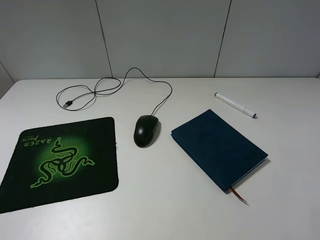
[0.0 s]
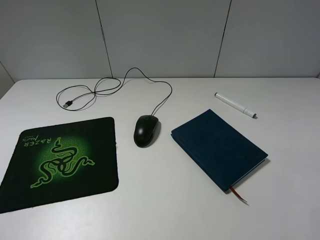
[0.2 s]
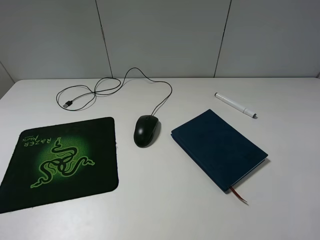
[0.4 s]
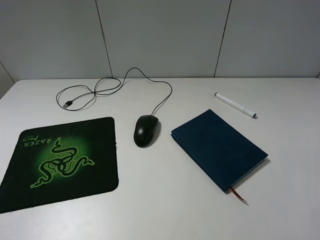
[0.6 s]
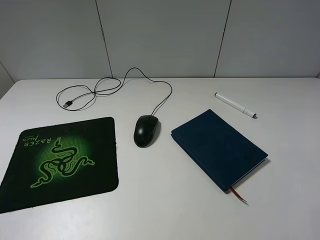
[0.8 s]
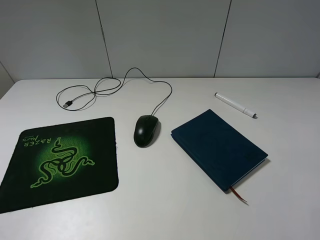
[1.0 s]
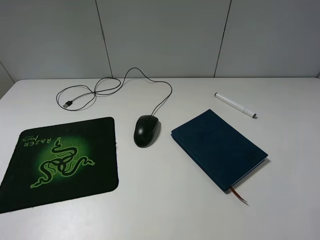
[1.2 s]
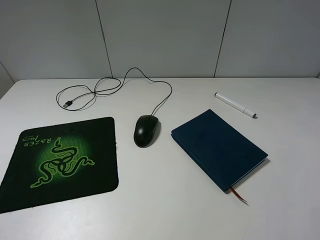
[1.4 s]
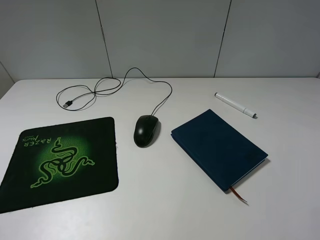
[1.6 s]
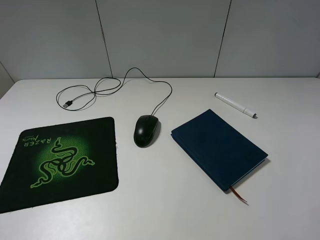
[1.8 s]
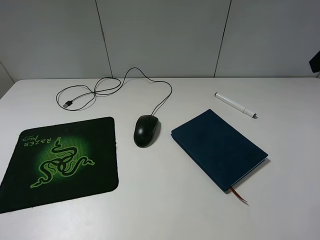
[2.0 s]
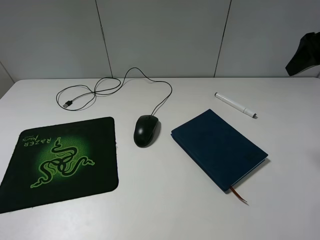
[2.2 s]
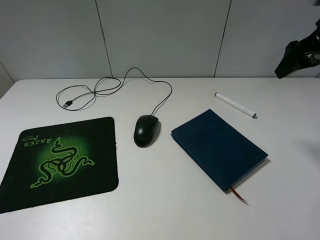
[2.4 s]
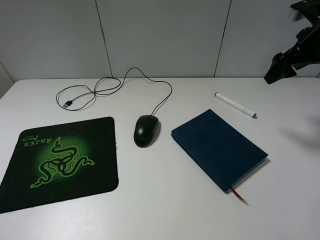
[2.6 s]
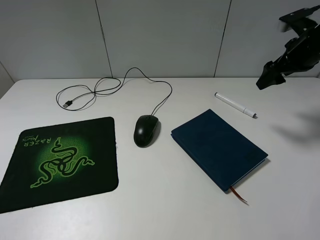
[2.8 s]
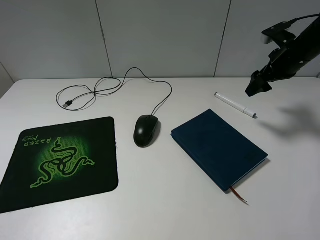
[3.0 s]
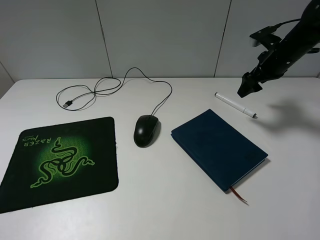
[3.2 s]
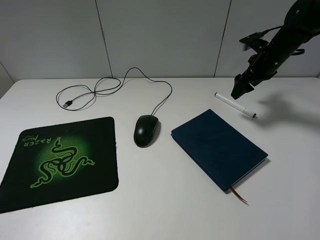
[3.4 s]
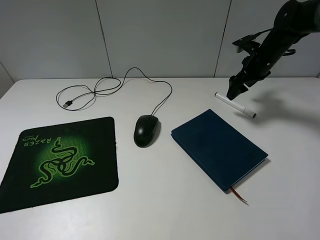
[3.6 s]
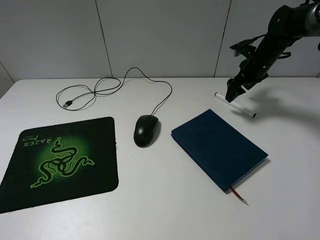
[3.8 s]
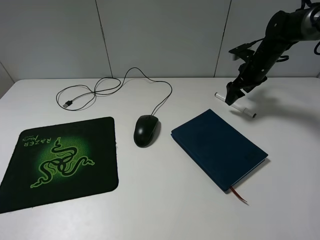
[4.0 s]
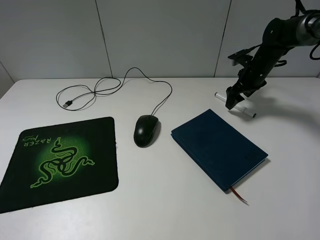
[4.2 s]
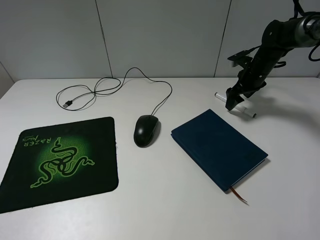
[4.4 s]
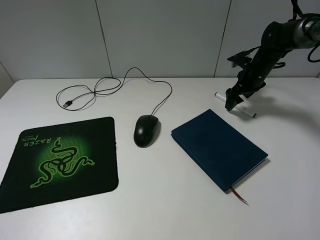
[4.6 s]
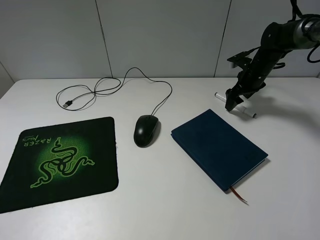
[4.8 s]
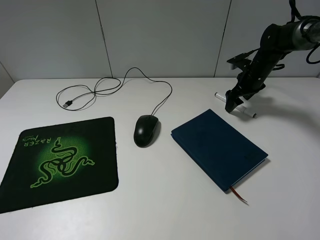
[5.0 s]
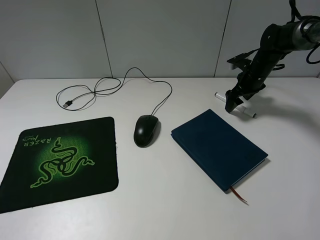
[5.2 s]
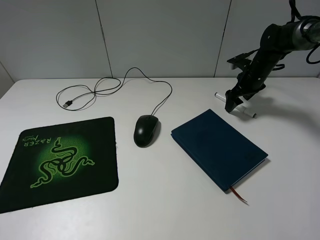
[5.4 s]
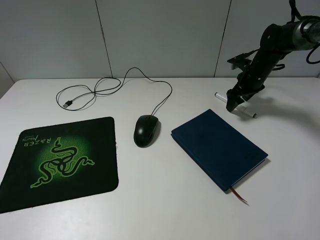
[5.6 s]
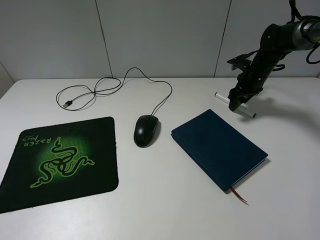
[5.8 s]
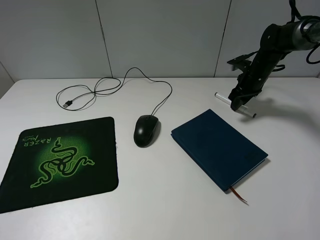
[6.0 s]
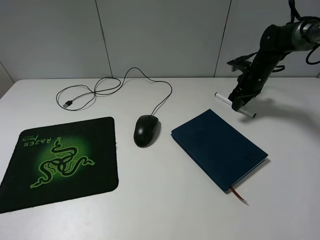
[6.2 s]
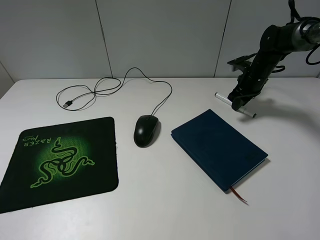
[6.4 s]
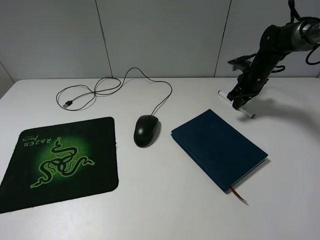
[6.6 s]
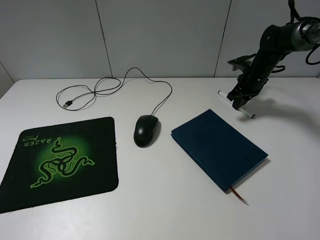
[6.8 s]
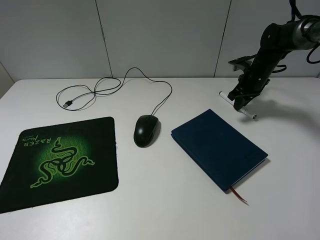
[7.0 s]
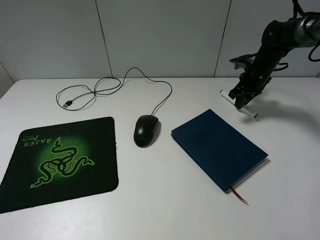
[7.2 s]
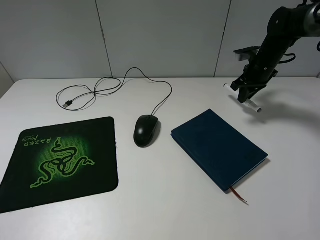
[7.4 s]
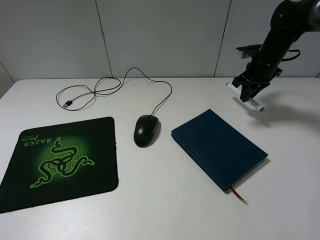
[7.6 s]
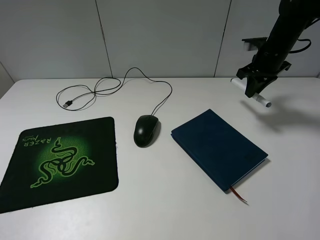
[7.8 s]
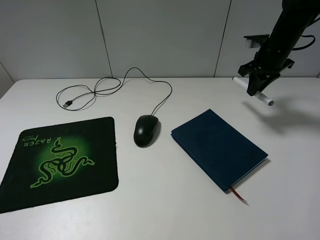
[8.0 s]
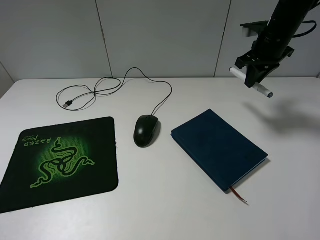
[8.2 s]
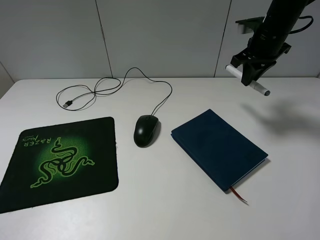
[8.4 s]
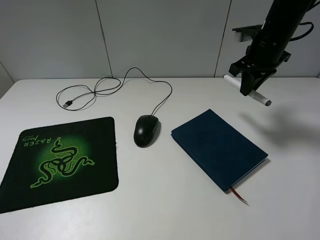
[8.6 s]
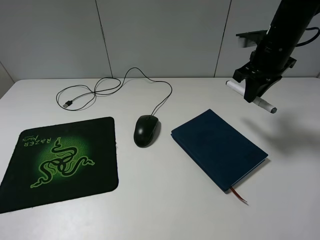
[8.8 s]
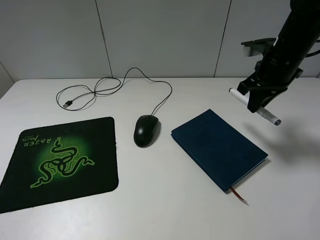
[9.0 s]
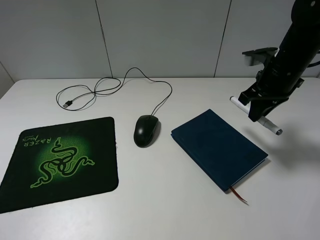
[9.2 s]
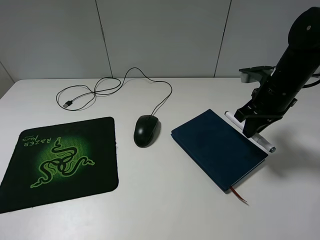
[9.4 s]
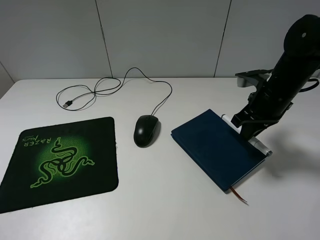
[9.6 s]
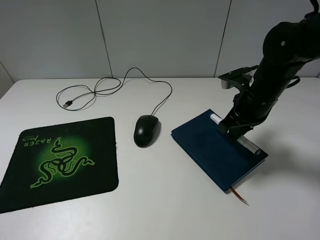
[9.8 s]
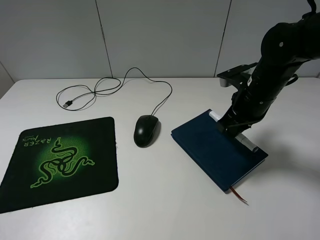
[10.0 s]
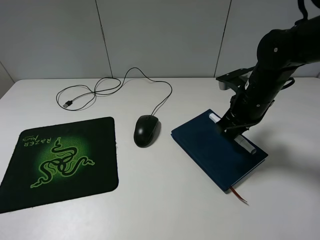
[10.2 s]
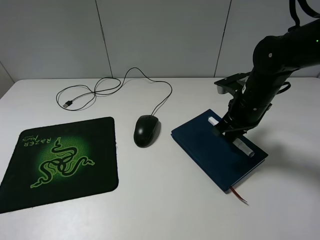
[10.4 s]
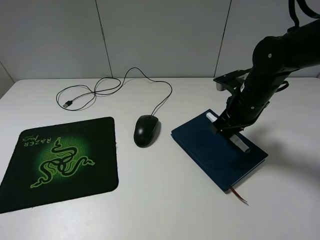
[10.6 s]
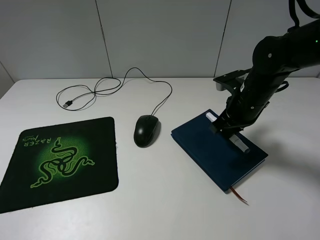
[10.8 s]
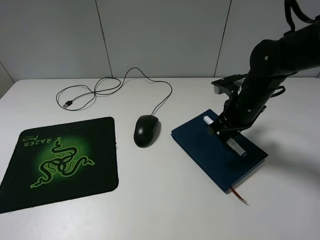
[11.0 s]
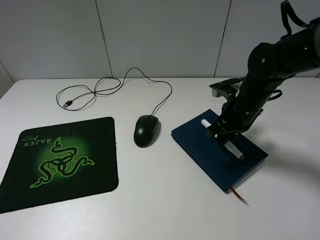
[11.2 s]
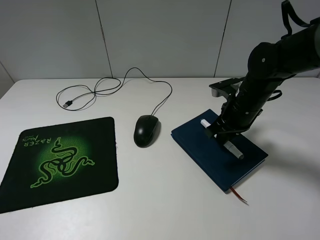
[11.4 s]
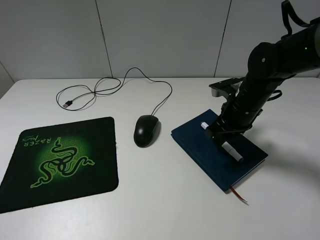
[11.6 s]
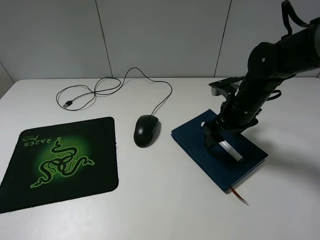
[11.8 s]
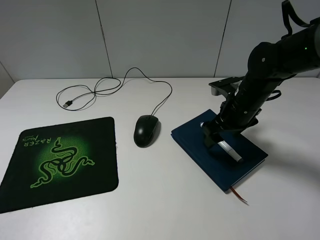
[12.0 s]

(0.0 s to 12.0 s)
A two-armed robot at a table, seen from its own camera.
Step, 0.0 s - 6.8 s: Grasp the marker with the right gripper.
Step, 7.0 s - 11.8 s: Place the marker on the notebook with the right gripper.
1.6 s - 3.0 s: The right gripper moves forward and downward, some 35 cm.
3.0 s - 4.4 s: The right gripper shifts about 10 cm downward and forward.
4.4 s - 6.0 s: The right gripper closes.
6.0 s - 7.6 s: The right gripper heads upward, covering some 5 cm.
7.6 s - 9.0 s: The right gripper goes about 15 cm backward and upward.
9.0 s - 10.4 s: The right gripper moves downward, about 5 cm.
10.4 s - 12.0 s: The right gripper opens up.

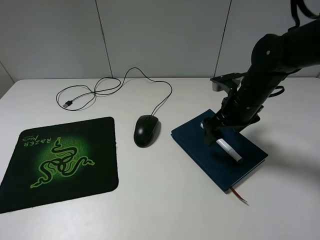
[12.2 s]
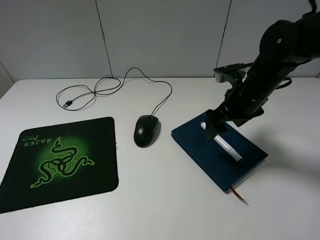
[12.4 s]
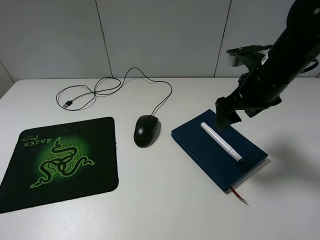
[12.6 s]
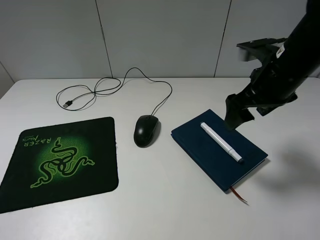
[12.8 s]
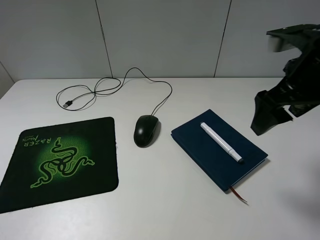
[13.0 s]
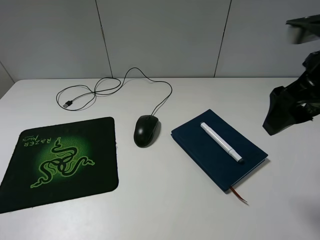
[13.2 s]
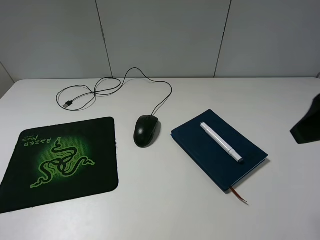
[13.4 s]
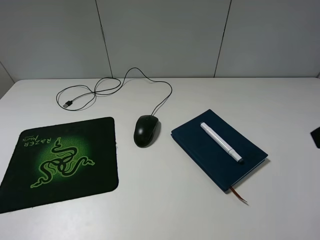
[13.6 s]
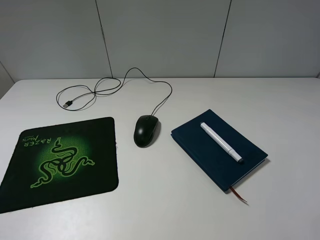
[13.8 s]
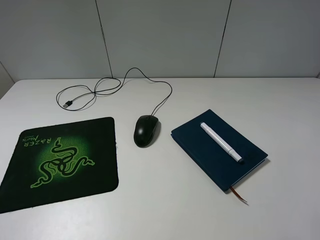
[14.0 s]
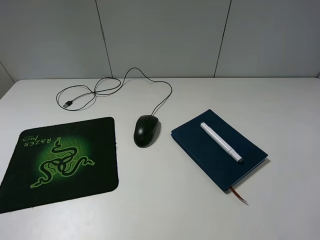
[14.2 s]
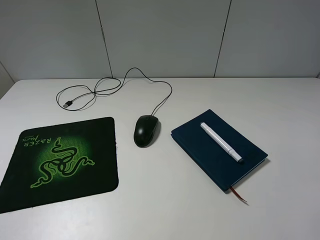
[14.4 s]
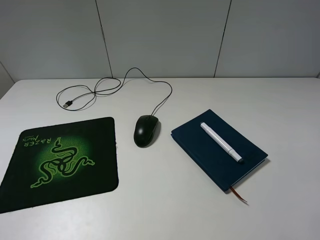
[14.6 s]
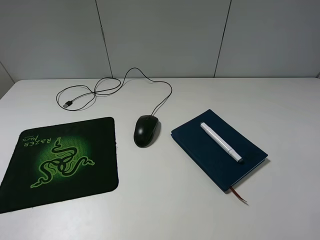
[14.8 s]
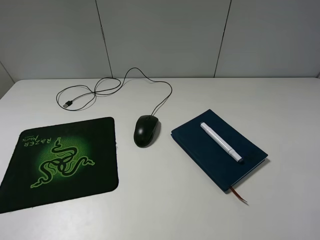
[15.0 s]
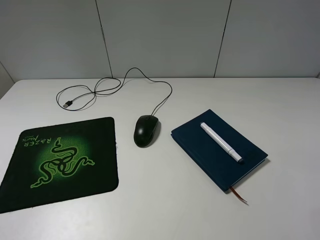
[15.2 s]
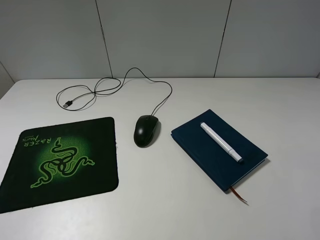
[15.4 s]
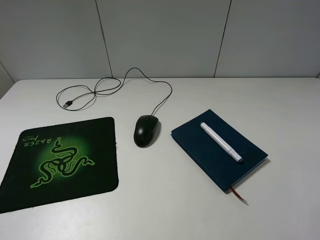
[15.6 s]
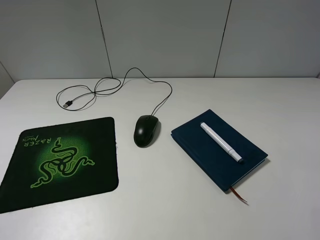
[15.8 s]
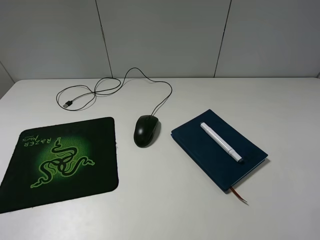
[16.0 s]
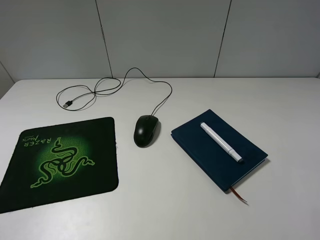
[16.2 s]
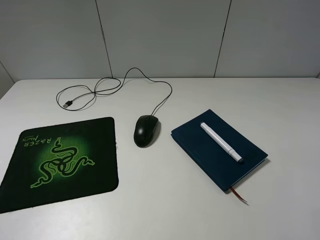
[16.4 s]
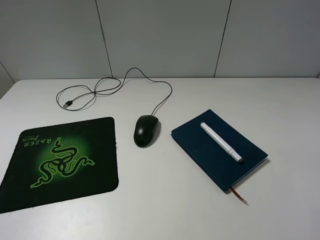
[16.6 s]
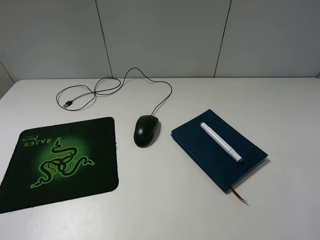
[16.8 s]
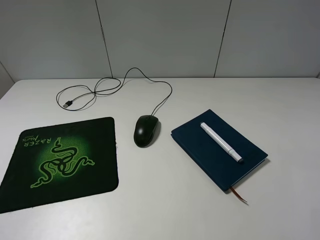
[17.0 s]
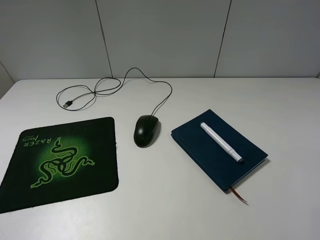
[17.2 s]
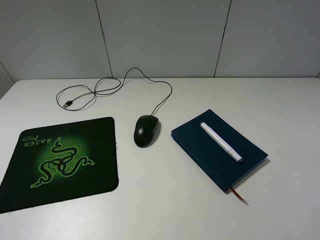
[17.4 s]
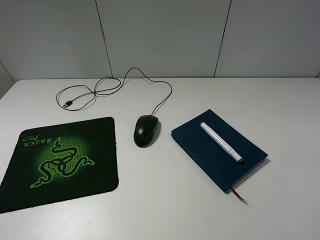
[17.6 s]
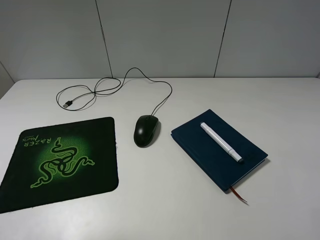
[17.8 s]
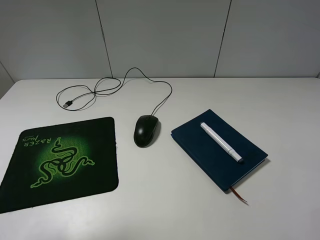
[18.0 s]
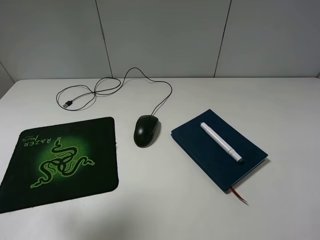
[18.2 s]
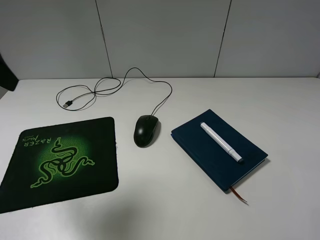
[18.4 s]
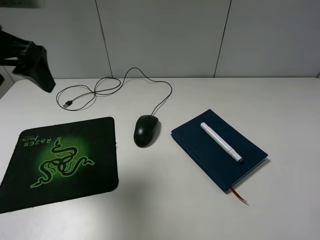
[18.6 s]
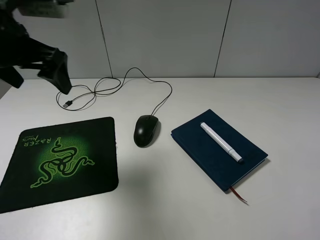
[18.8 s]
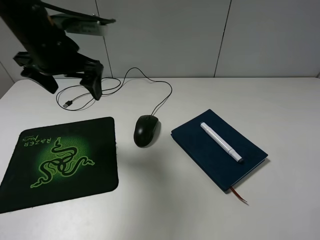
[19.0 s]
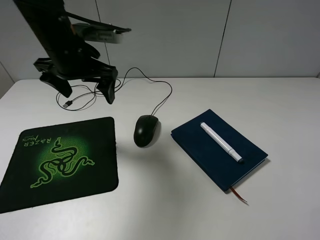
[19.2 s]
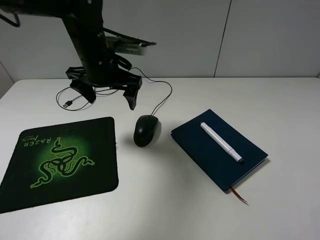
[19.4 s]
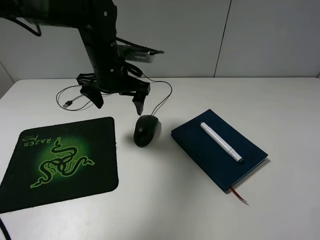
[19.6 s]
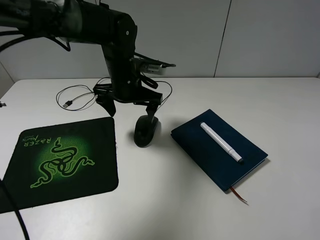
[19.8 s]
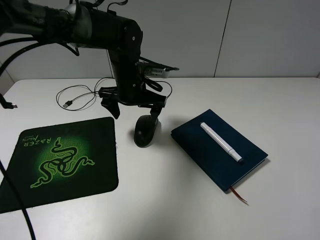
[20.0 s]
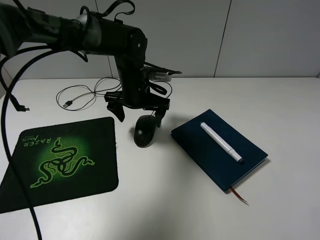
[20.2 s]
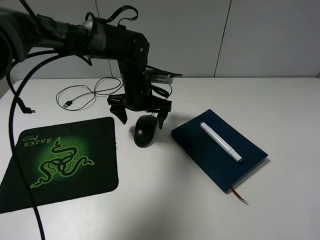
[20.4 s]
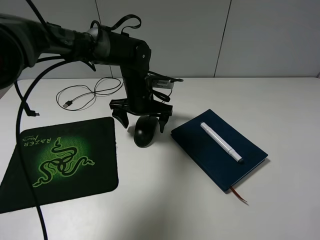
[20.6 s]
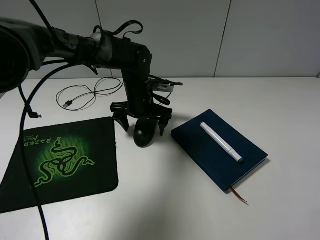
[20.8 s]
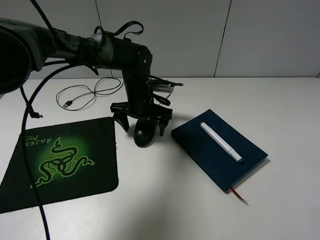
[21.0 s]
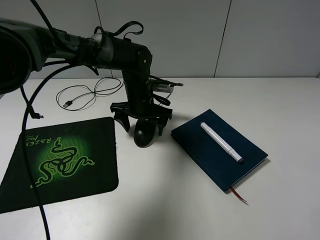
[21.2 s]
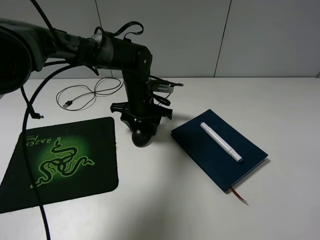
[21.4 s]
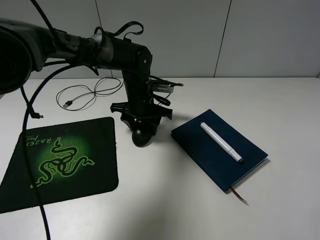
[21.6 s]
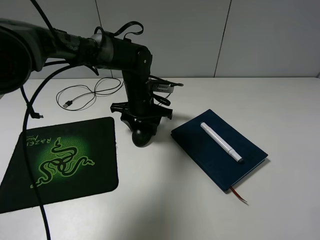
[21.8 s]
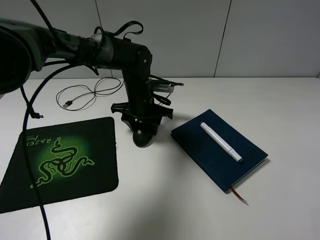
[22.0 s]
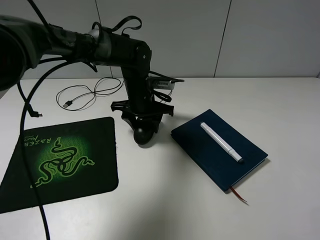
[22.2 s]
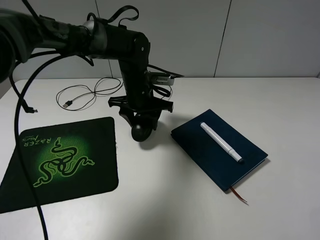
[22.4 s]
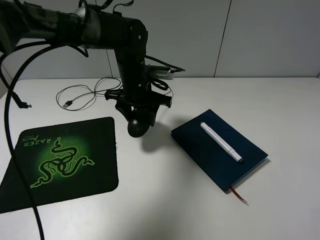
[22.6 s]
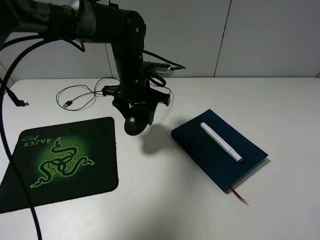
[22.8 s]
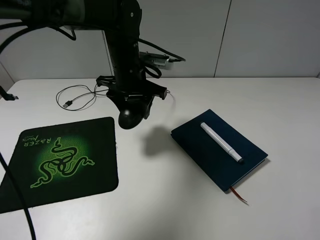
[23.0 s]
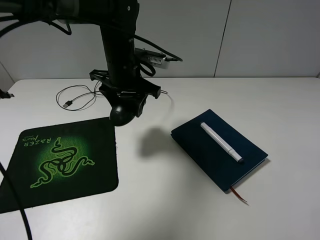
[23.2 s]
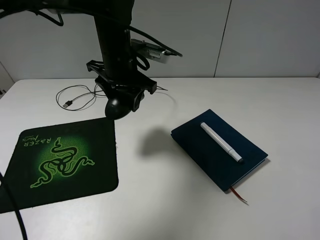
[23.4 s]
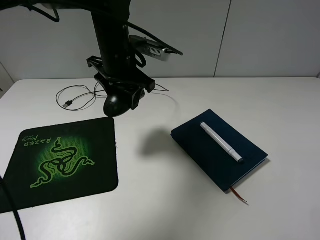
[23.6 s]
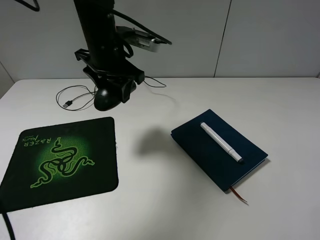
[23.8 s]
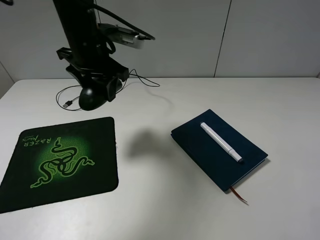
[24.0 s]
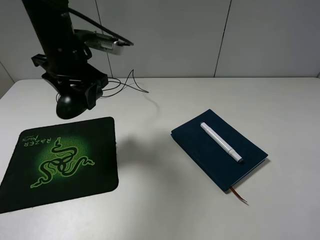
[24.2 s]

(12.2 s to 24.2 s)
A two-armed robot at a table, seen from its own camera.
Step, 12.2 s - 21.6 s: Grasp the mouse with the left gripper.
12.2 s - 13.8 s: The right gripper travels backward and upward by approximately 35 cm.
15.2 s - 16.6 s: Both grippers stay about where they are.
16.6 s - 18.2 s: The left gripper goes about 20 cm forward and upward.
18.2 s - 19.8 s: The left gripper travels to the right, downward and forward by roughly 35 cm.
19.8 s - 21.2 s: The left gripper moves downward, about 5 cm, and closes its fingers.
21.2 s - 22.6 s: The left gripper travels upward by about 5 cm, and closes up.
22.6 s - 24.2 s: The left gripper is displaced to the left and upward by roughly 15 cm.
